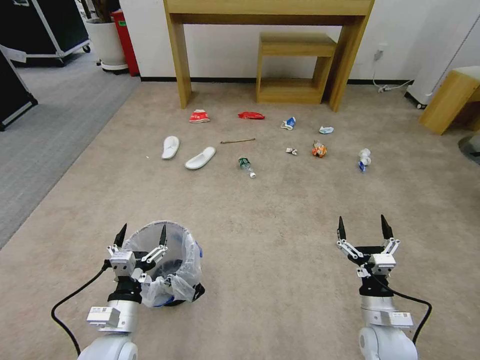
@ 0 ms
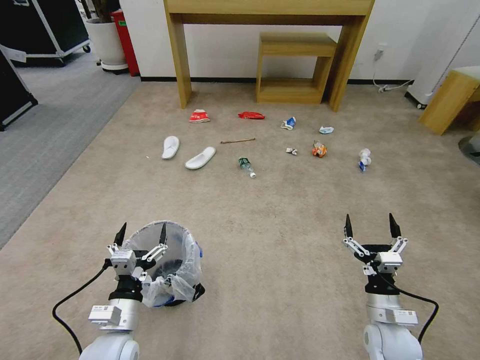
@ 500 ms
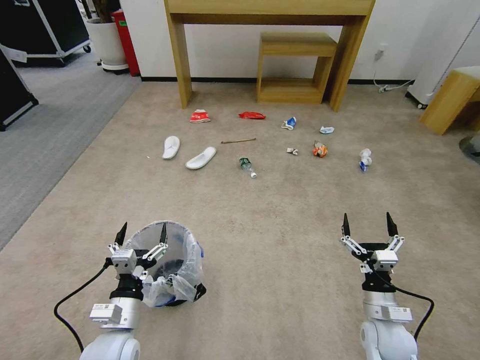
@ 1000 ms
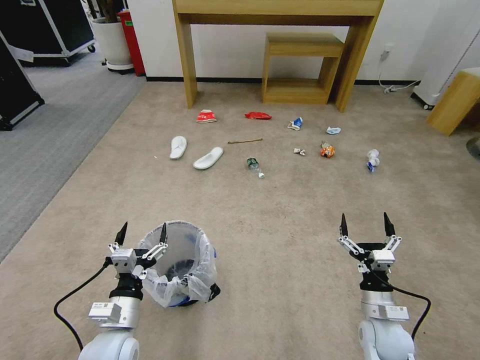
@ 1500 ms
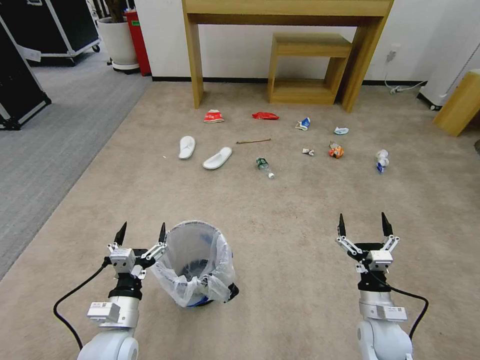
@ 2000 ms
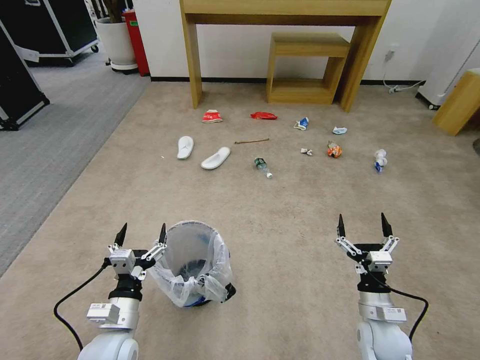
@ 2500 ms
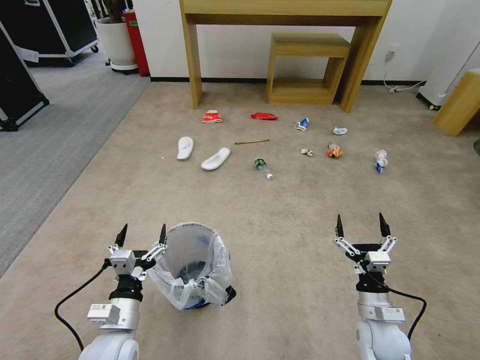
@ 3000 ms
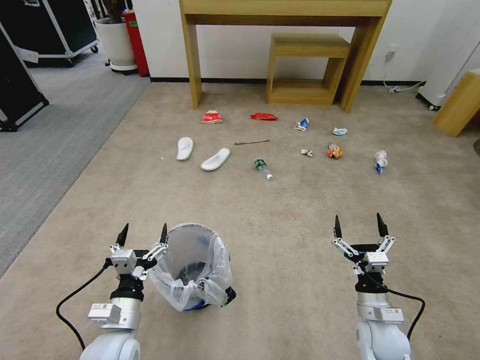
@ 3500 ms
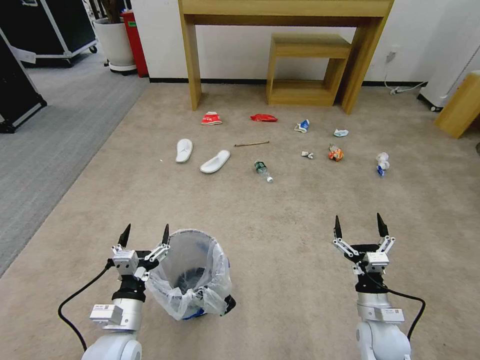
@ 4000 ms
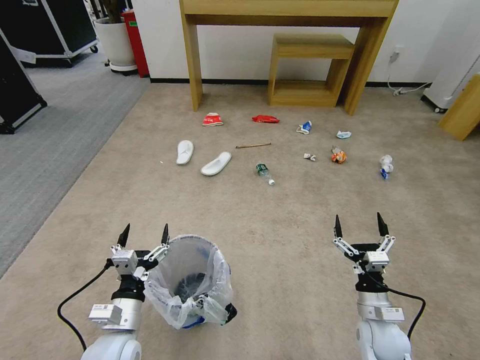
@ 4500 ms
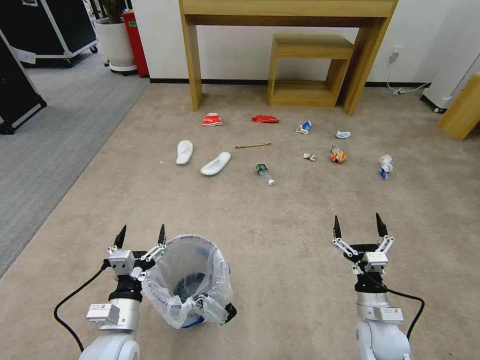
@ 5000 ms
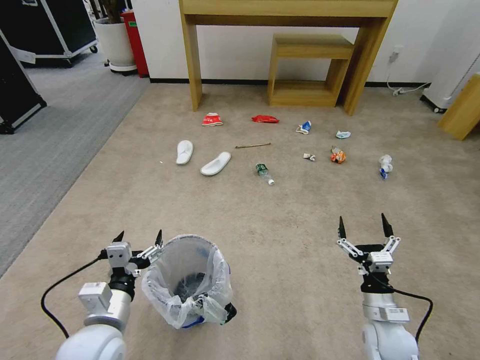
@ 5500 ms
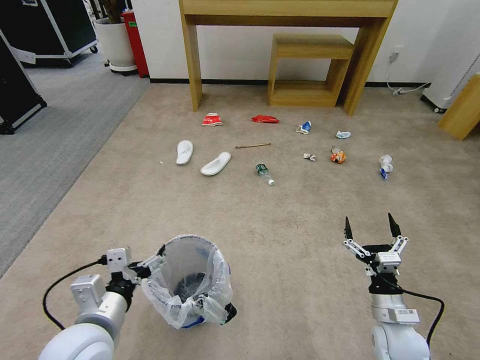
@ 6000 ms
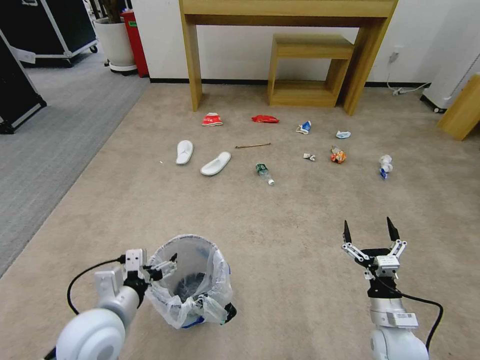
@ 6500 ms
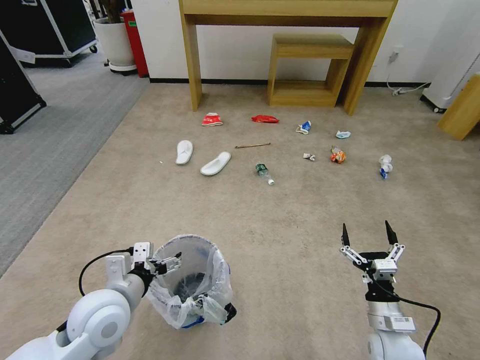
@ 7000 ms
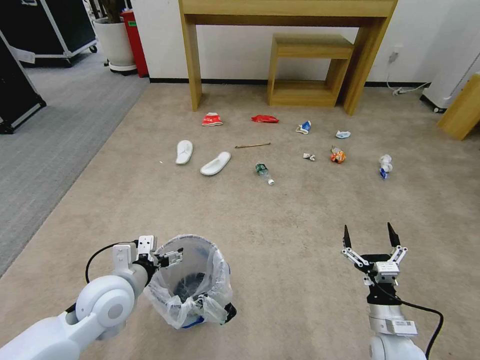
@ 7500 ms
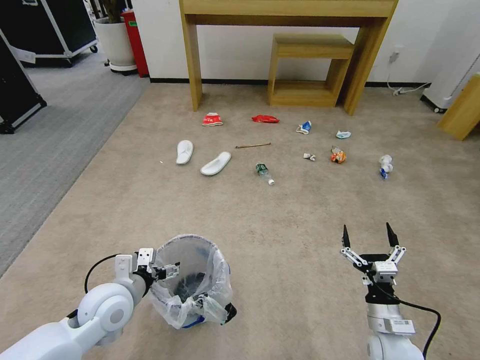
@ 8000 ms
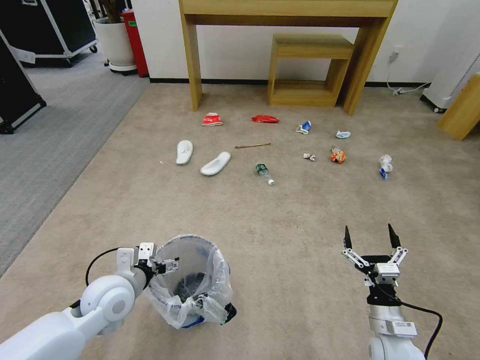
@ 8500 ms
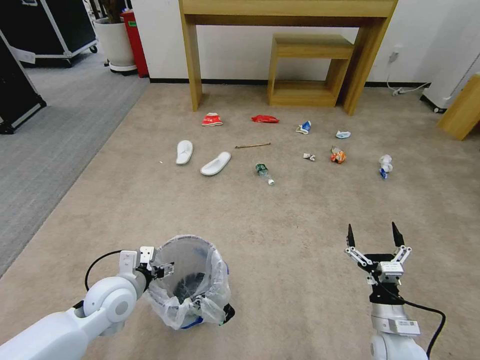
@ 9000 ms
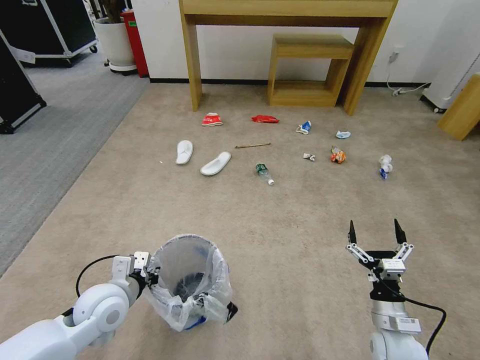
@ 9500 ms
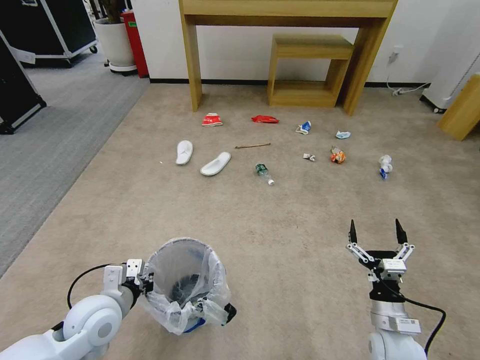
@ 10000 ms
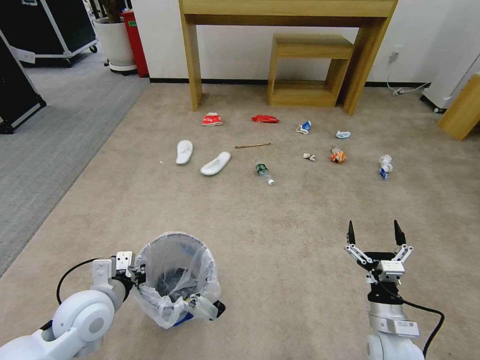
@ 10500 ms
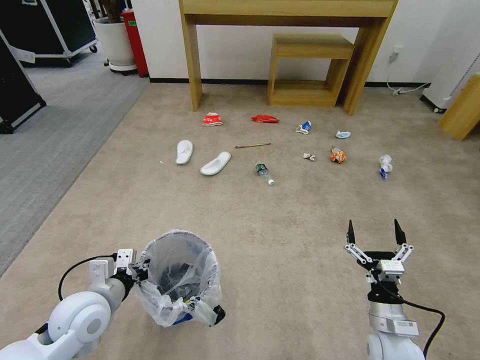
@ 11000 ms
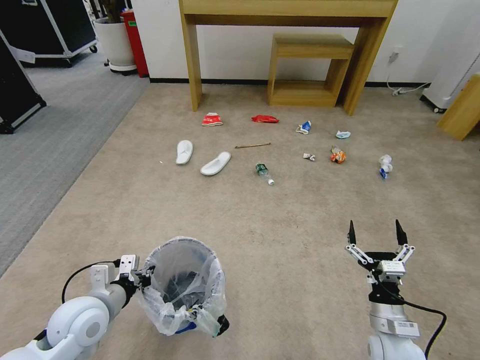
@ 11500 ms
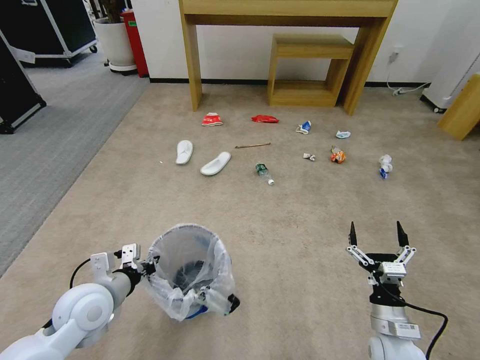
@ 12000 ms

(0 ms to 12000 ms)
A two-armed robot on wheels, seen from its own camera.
Task of the whole recording: Pick up the trash bin and place the garbage on the floor into it.
2000 ms - 4000 ms: Both grippers stay put.
4000 ms - 6000 ms: The left gripper moves upward, roughly 10 cm.
6000 ms - 8000 ms: The left gripper heads forward and downward, covering roughly 10 cm.
8000 ms - 10000 ms: The left gripper closes its fingers.
10000 ms - 12000 ms: The grippers make only small movements.

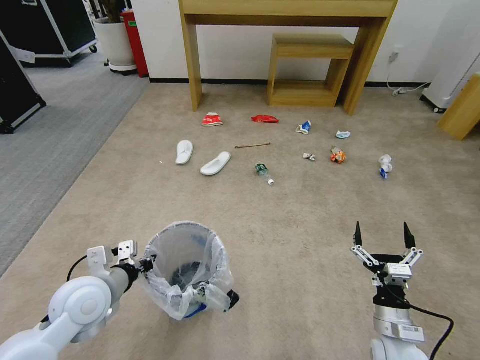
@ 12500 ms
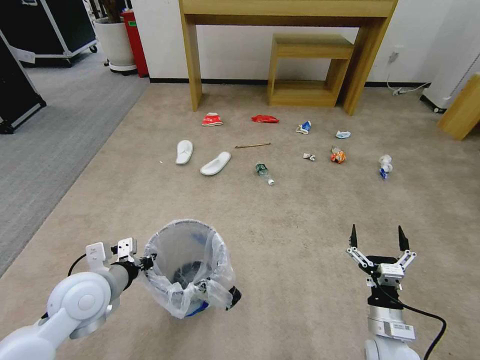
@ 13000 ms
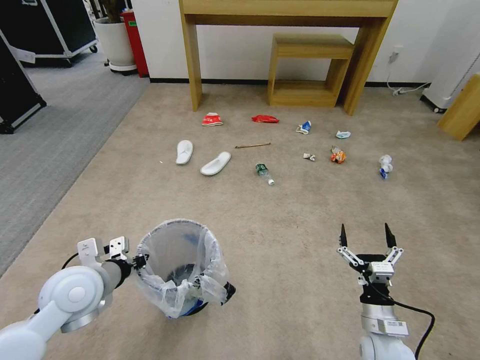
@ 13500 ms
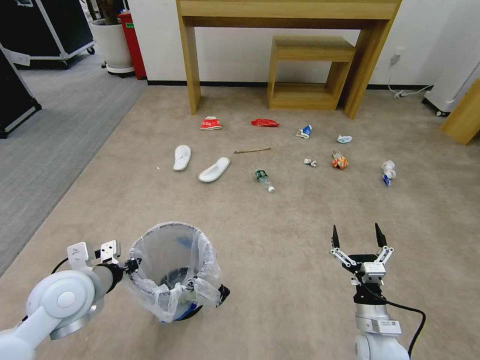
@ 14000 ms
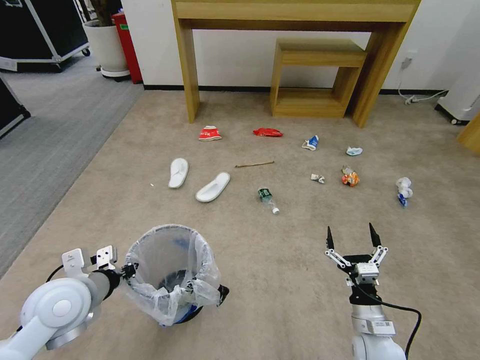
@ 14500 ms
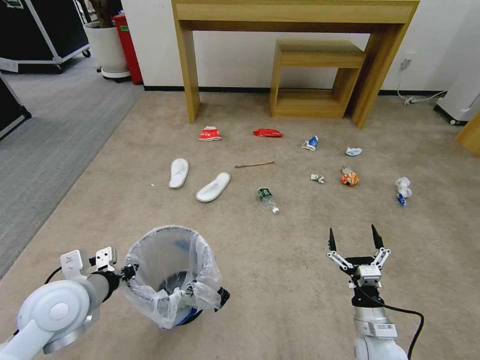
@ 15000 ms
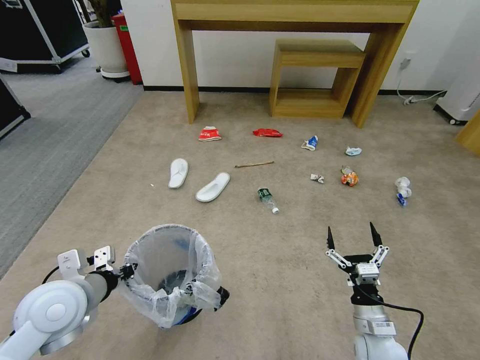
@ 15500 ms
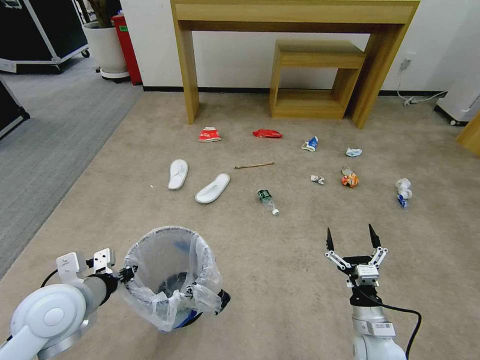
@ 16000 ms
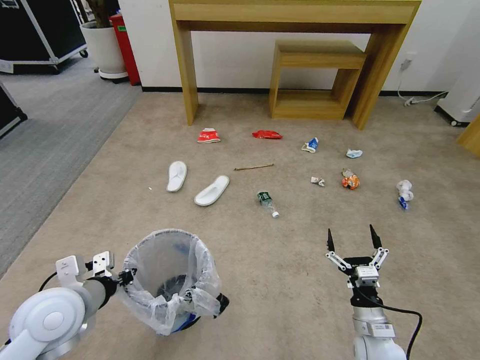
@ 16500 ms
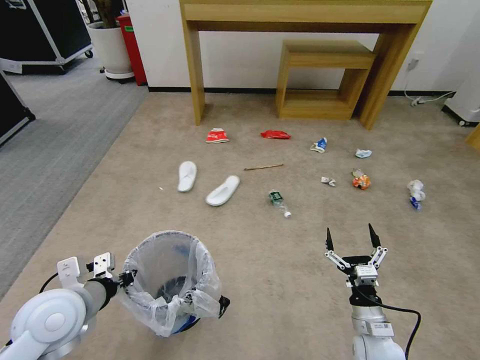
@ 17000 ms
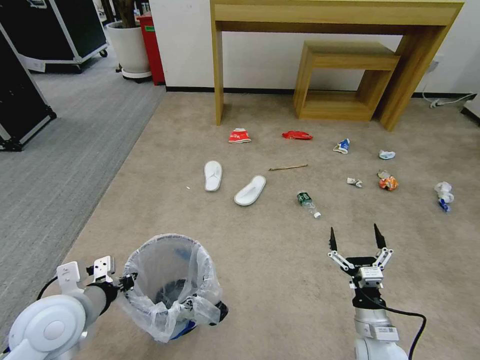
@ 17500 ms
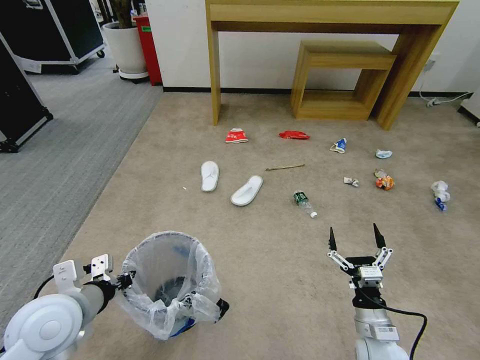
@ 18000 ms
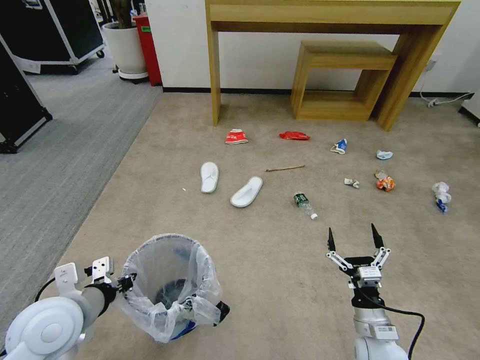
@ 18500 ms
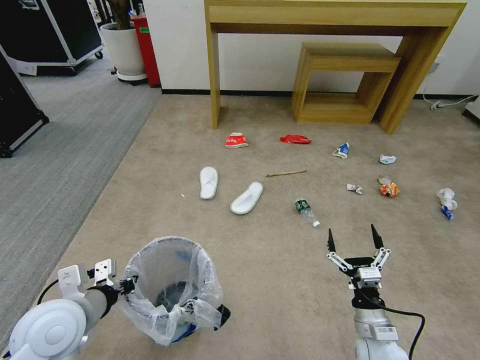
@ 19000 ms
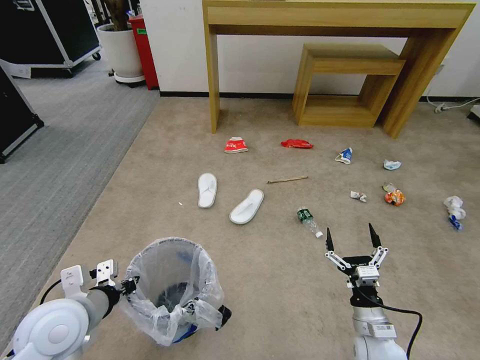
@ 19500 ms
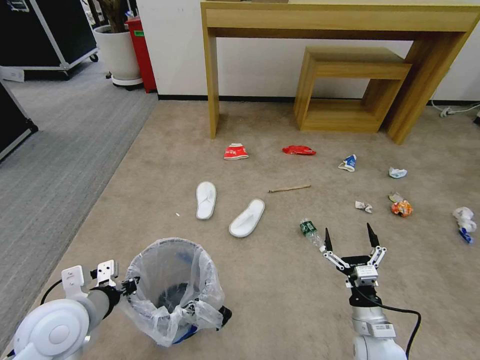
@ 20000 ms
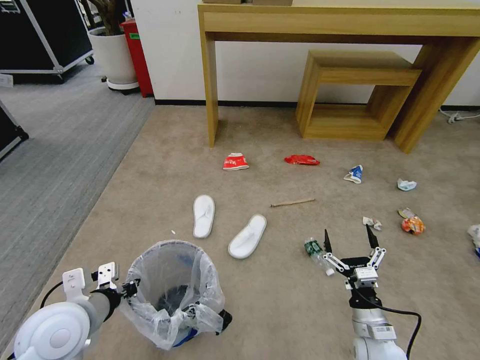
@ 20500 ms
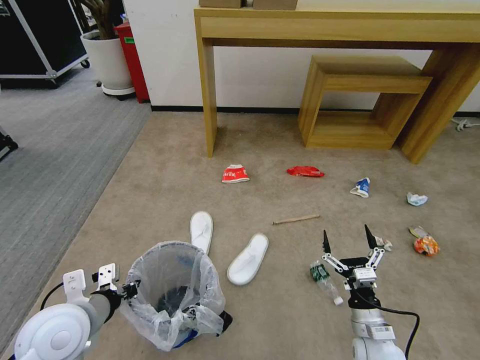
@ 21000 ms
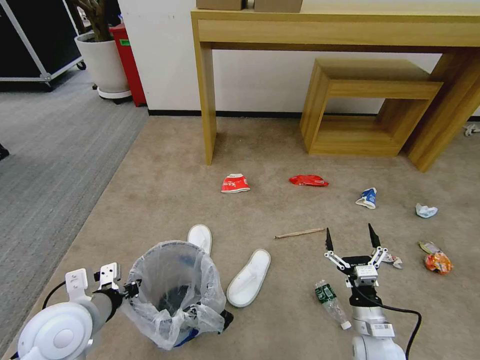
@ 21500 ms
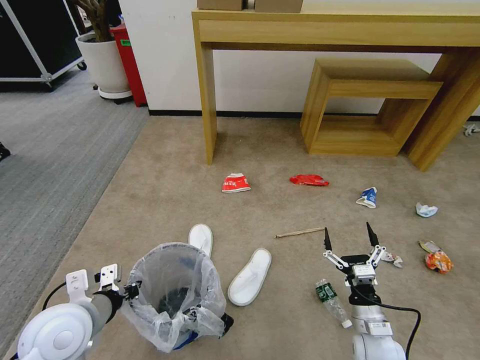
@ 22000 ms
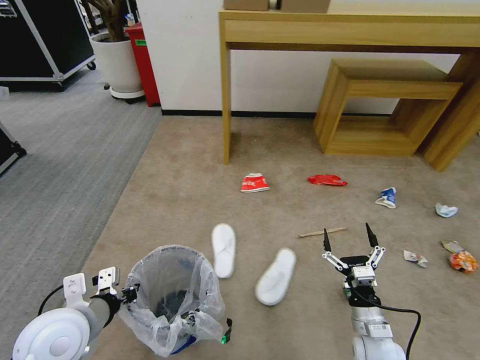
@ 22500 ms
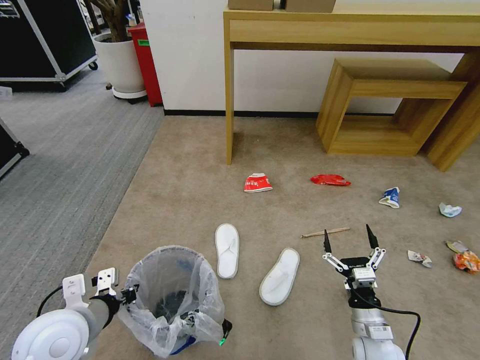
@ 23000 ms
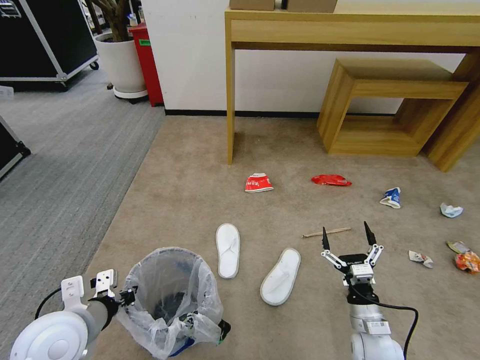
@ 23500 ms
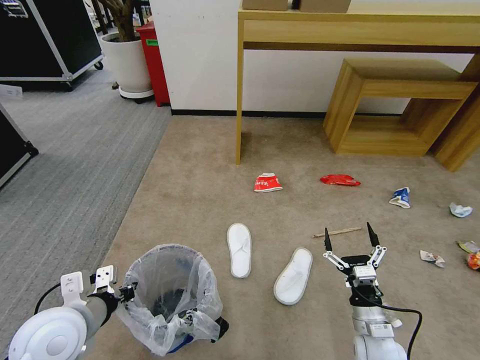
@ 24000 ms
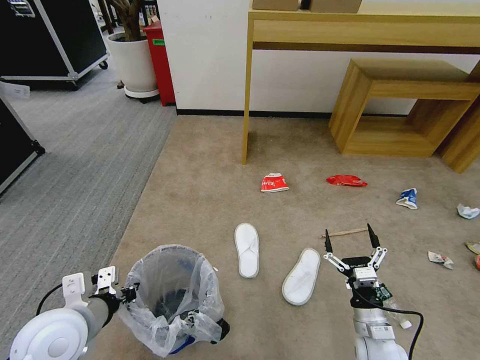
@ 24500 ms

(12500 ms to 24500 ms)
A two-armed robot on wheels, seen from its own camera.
Task of the whole recording: Pick up the trash bin and place the garbage on the floor into it.
14500 ms - 16500 ms: The grippers make only small movements.
22500 ms - 24500 ms: Neither gripper changes place.

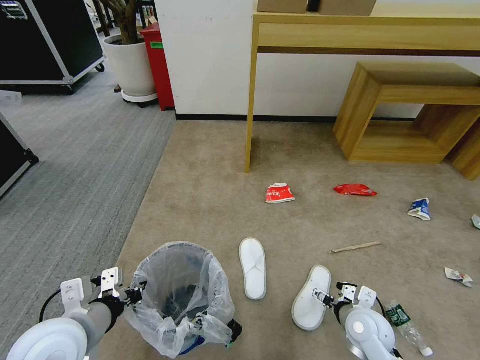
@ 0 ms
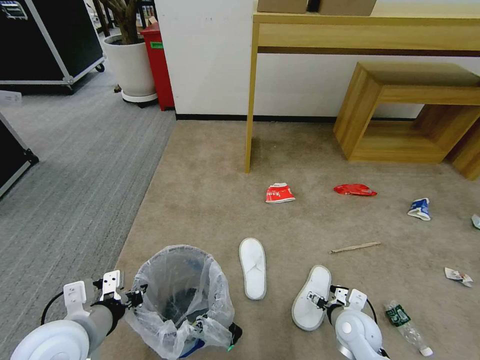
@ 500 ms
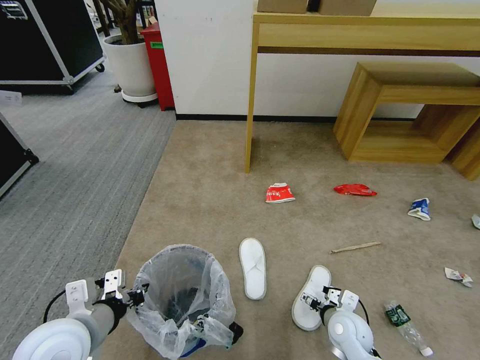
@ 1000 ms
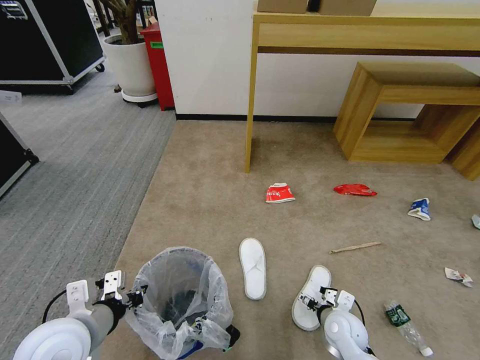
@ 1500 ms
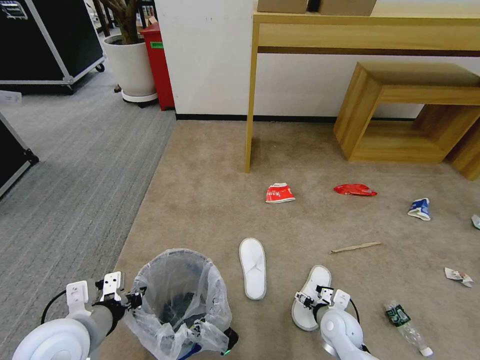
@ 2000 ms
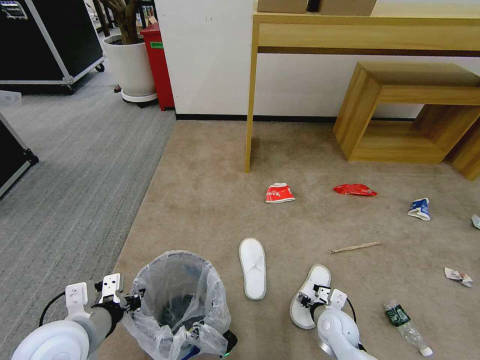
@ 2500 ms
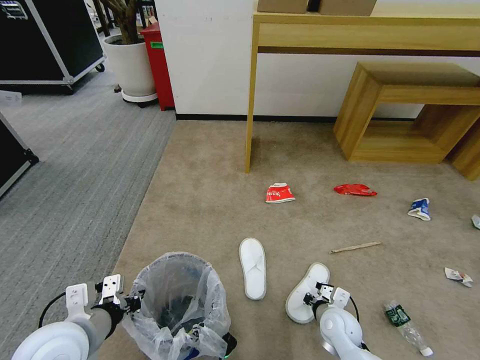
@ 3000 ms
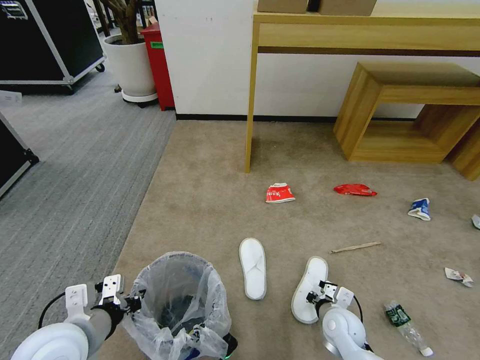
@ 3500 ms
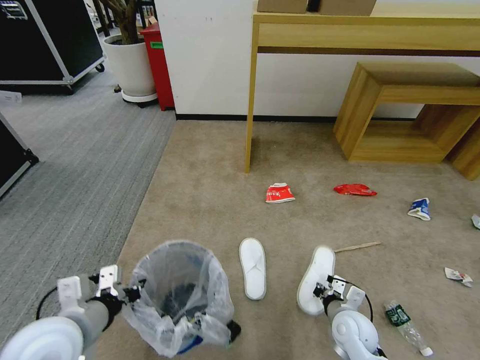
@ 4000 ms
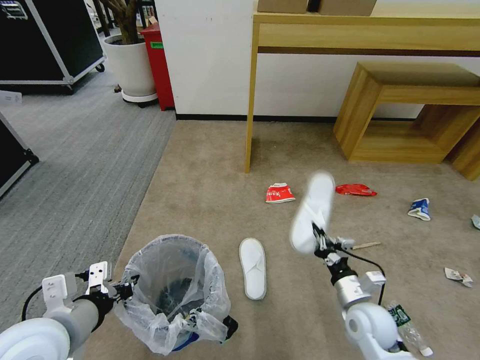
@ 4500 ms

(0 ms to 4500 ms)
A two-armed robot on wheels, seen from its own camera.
Task of the whole recording: Pick up the trash bin and place the garbage on the floor into it.
0 ms - 2000 ms: The right gripper travels downward by about 5 cm.
2000 ms - 4500 ms: The right gripper shifts some 10 cm upward, and closes.
